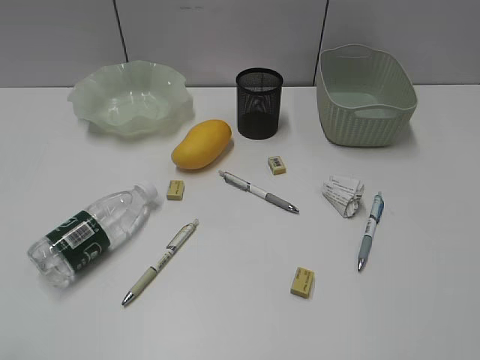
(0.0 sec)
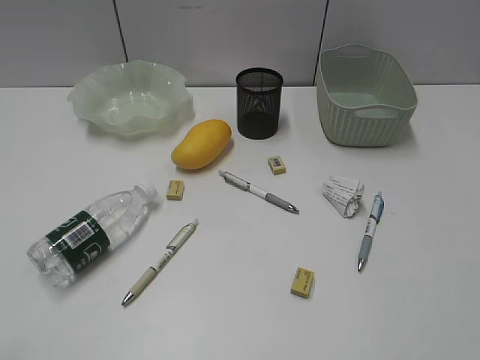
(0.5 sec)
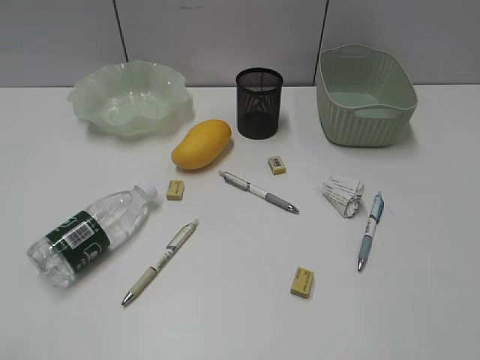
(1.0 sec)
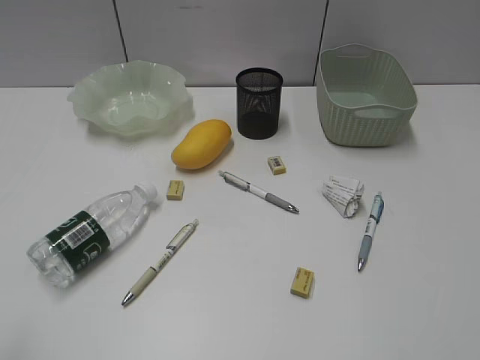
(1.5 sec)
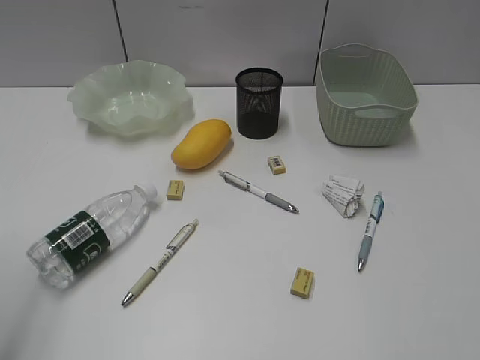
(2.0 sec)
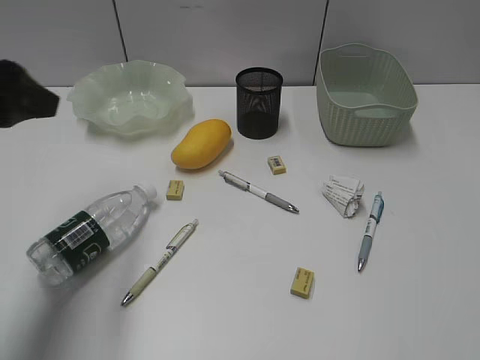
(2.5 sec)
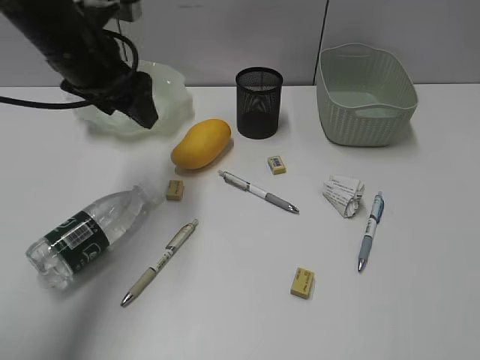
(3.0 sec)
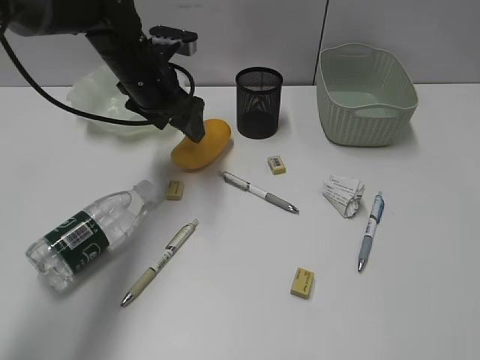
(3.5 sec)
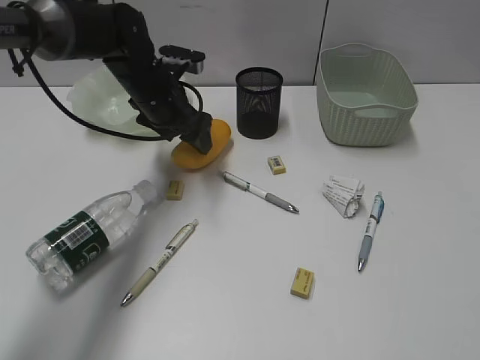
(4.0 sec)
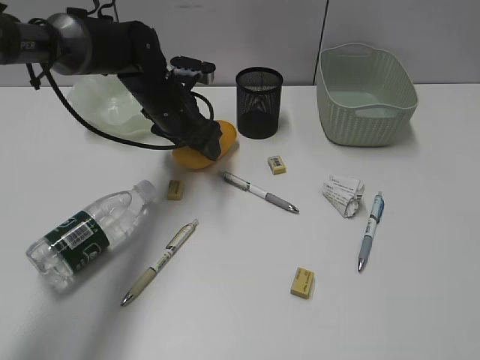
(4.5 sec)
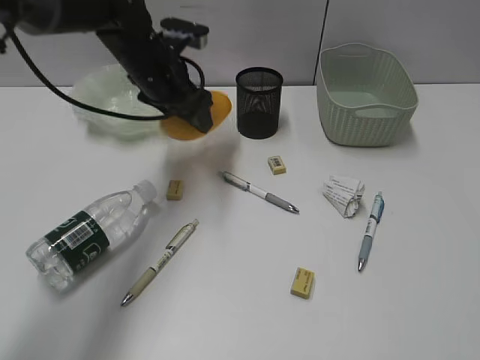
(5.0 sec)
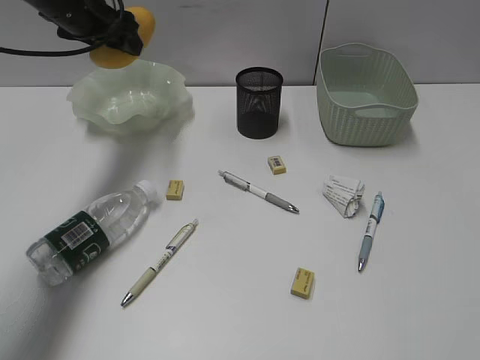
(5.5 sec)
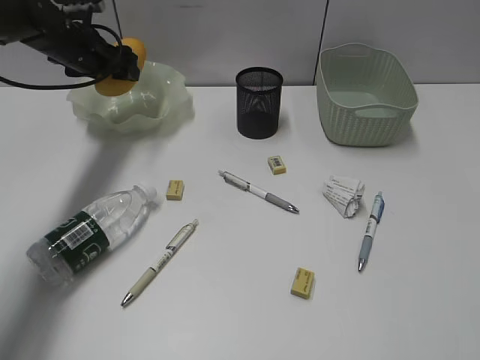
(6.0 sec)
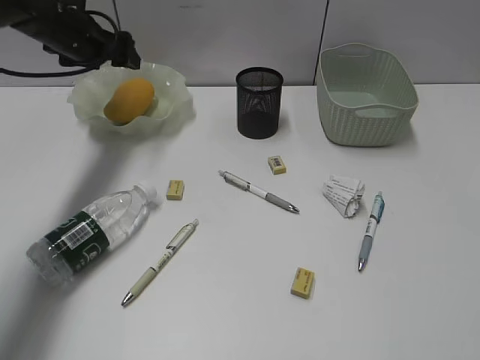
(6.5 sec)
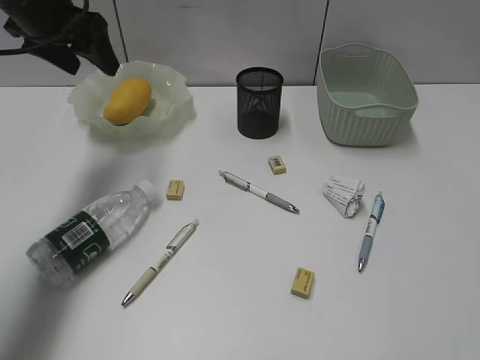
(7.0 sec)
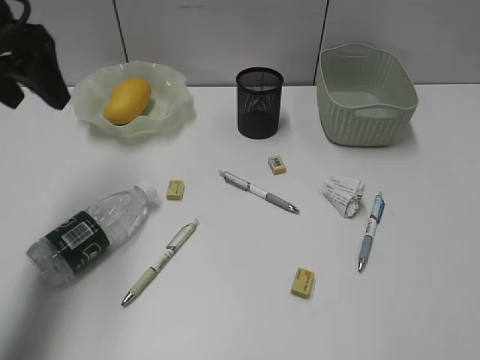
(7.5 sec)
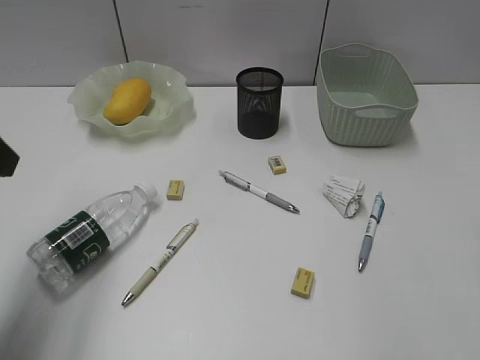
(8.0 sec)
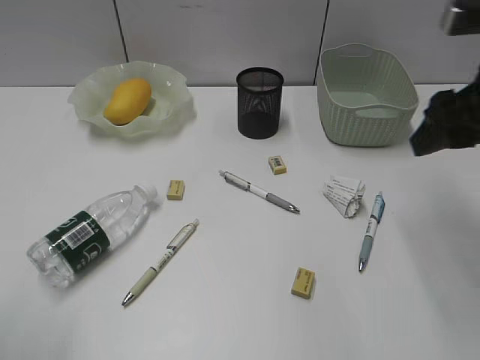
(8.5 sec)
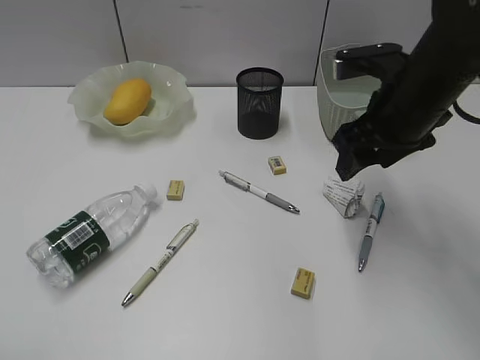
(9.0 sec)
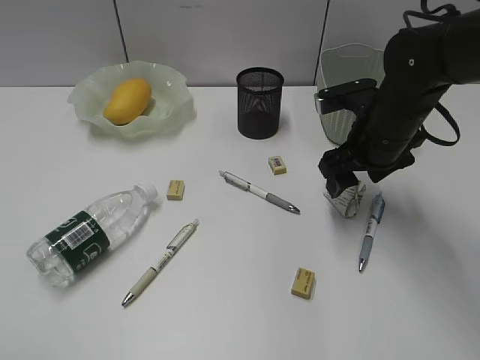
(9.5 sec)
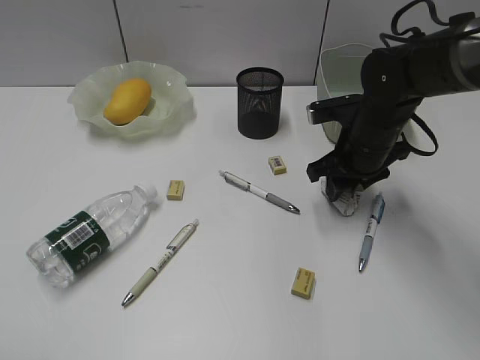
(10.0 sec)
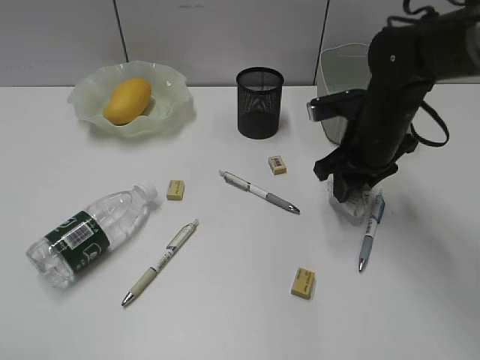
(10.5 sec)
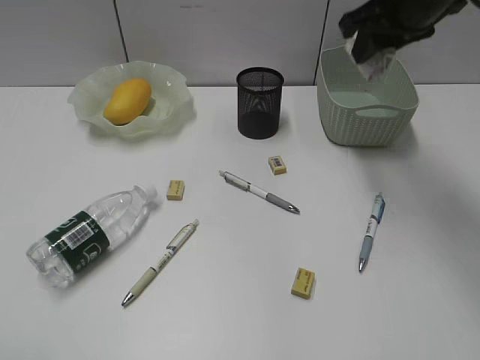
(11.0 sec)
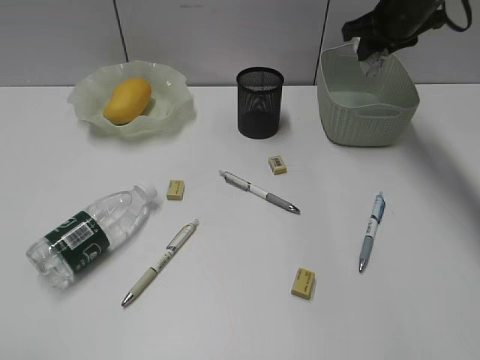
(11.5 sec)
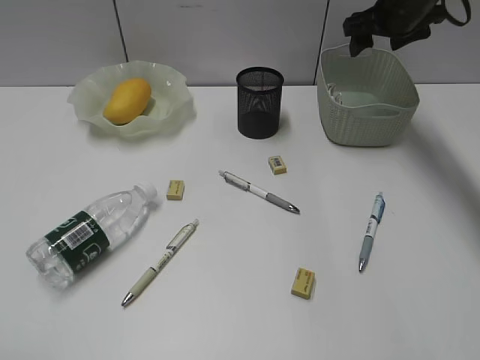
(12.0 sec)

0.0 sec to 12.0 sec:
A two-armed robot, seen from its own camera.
Step, 2.5 sec to 4.5 sec: Grasp the mango with left gripper.
Step, 5.0 sec to 6.5 sec: Place the mango in the plate with left gripper.
Step, 7.0 sec to 10.0 sec: Grasp the waste paper with right gripper.
Step, 10.5 sec to 11.5 sec: Place the waste paper in the basket with right gripper.
2.0 sec to 4.0 sec: The left gripper travels forward, to the right and downward by approximately 40 cm.
4.0 sec to 6.0 sec: The left gripper goes some 15 cm to the left and forward.
6.0 sec to 8.0 sec: The left gripper is displaced backward by roughly 30 cm.
8.0 sec to 10.0 sec: The right gripper goes roughly 35 cm forward, downward and to the left, while the left gripper heads backward, covering roughly 20 cm.
10.0 sec to 12.0 sec: The right gripper shifts some 20 cm forward and upward, and opens up.

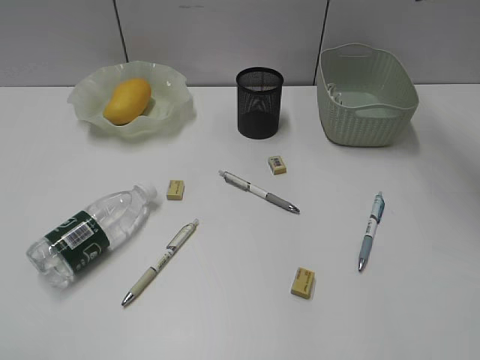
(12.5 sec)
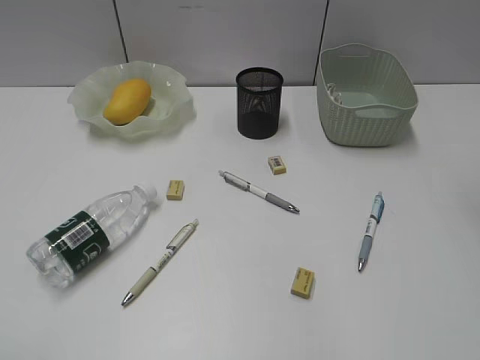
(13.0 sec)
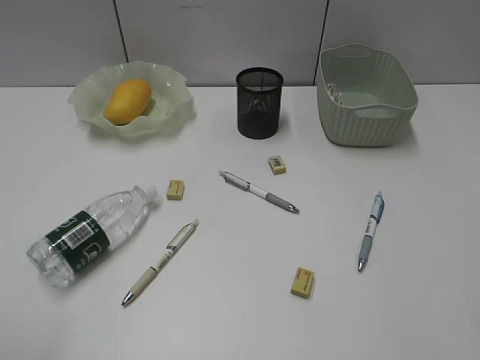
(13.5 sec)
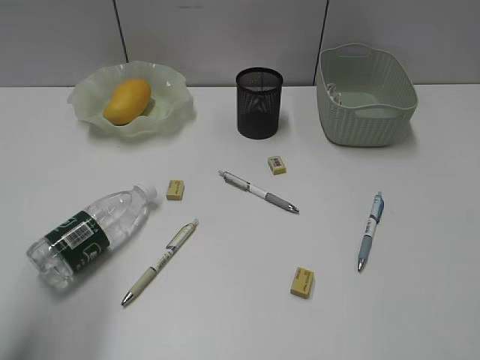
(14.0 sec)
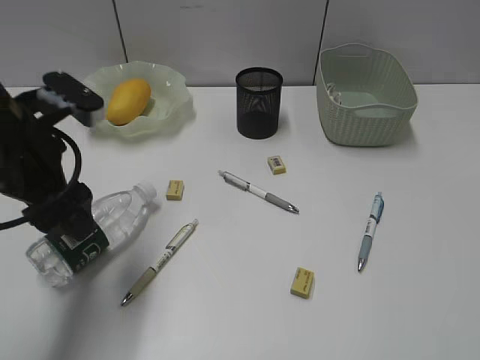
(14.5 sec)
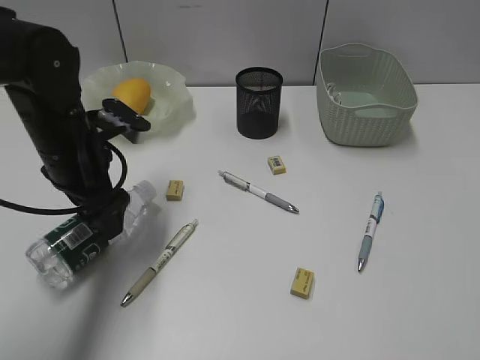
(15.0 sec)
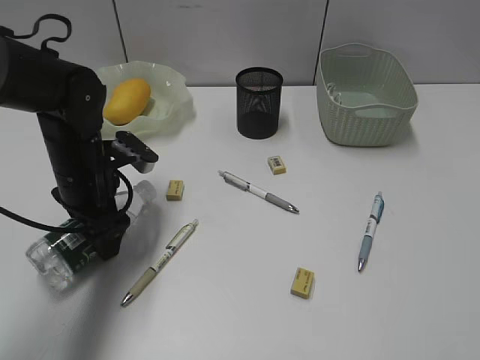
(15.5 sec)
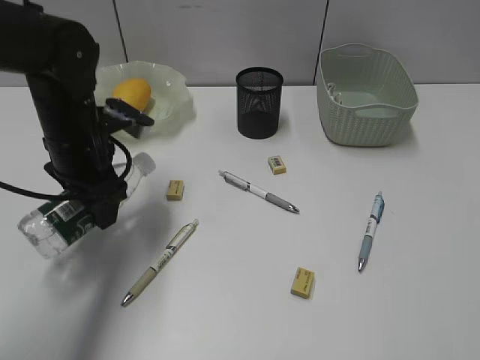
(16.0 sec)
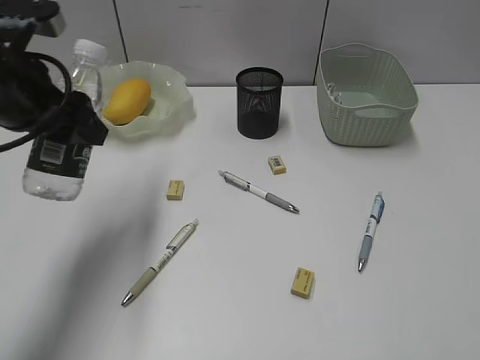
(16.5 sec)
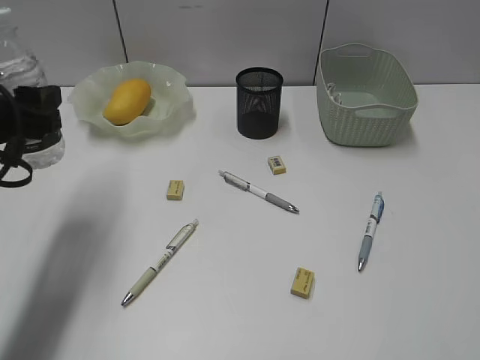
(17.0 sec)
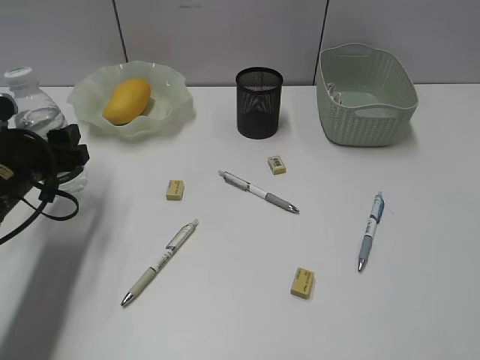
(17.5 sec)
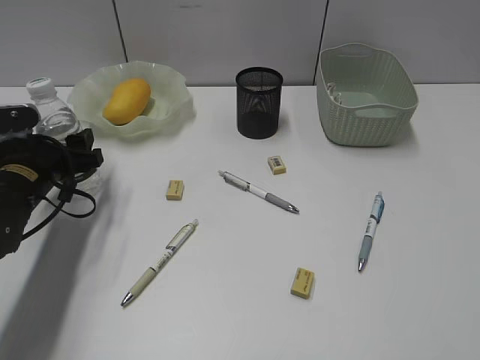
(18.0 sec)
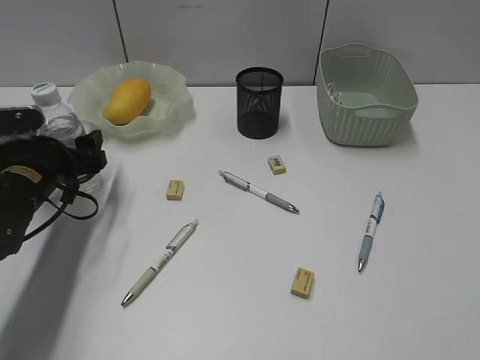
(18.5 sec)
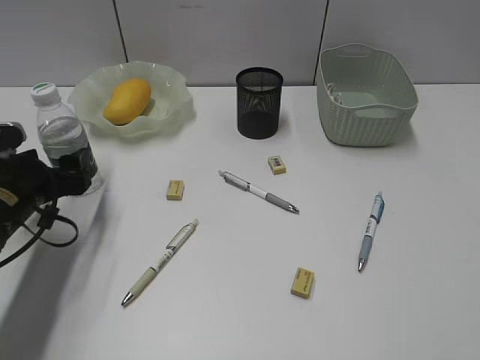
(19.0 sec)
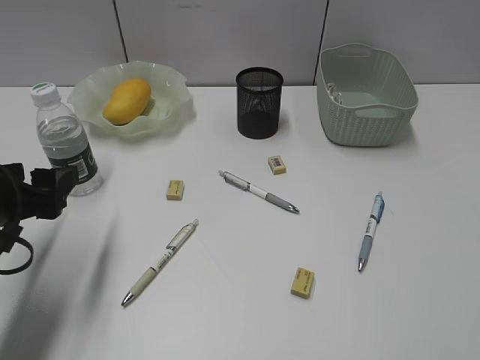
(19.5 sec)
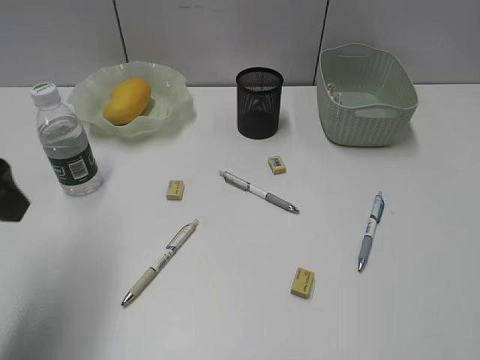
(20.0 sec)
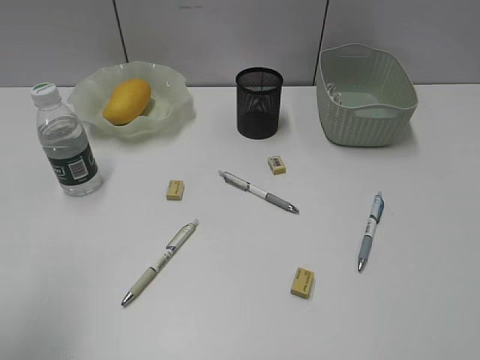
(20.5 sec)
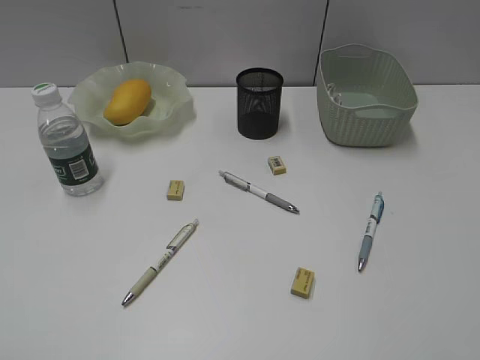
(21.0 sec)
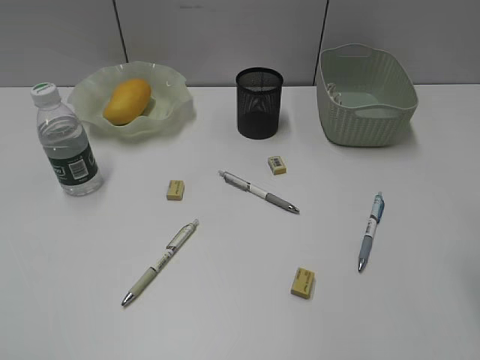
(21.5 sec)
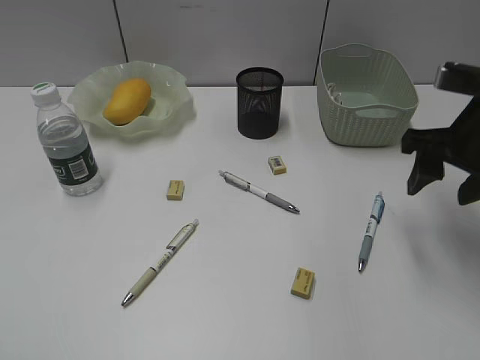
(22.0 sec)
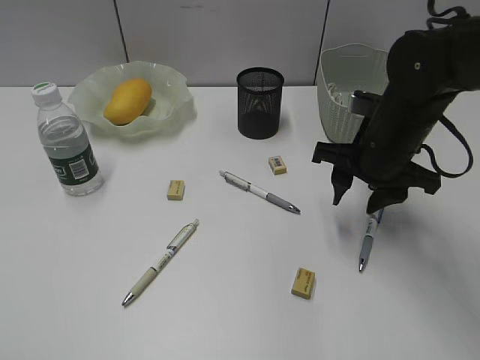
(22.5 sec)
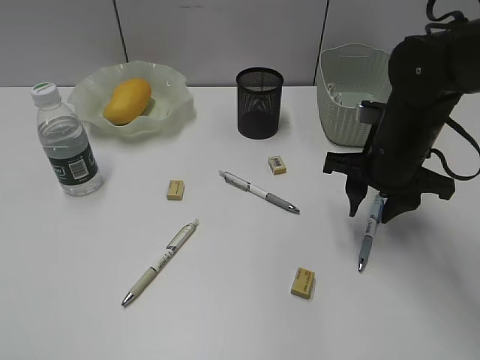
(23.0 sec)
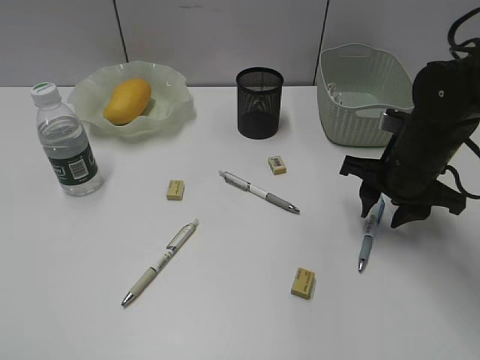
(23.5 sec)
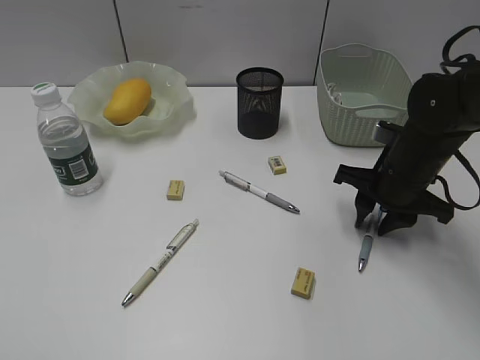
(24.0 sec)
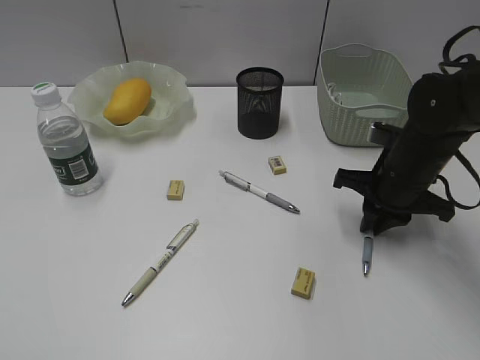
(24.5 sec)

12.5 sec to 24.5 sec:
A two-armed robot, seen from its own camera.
Step, 12.5 sec to 15.5 sec: Grasp the bottle with left gripper.
Step, 16.0 sec to 19.0 sec: Stand the bottle with left gripper.
Step, 19.5 sec to 24.0 sec: Grasp the blue pen with right gripper.
12.5 sec to 14.5 sec: The left gripper is displaced forward and to the right by about 30 cm. Meanwhile the right gripper is displaced backward by roughly 40 cm, and opens.
14.5 sec to 16.5 sec: The left gripper goes downward and returns, approximately 10 cm each way.
16.5 sec to 18.5 sec: The left gripper is displaced downward by about 15 cm.
18.5 sec to 20.5 sec: The left gripper shifts some 30 cm backward and upward.
20.5 sec to 22.5 sec: The left gripper is displaced backward by roughly 10 cm, while the right gripper travels forward, to the left and downward by approximately 35 cm.
22.5 sec to 24.5 sec: The right gripper changes place by roughly 5 cm, and closes its fingers.

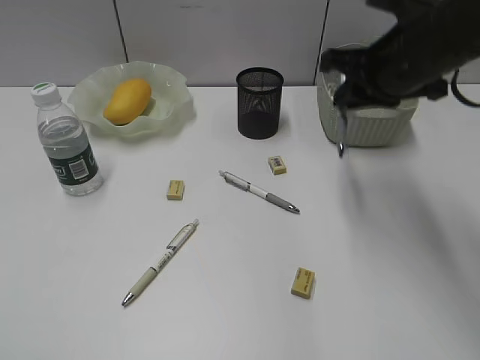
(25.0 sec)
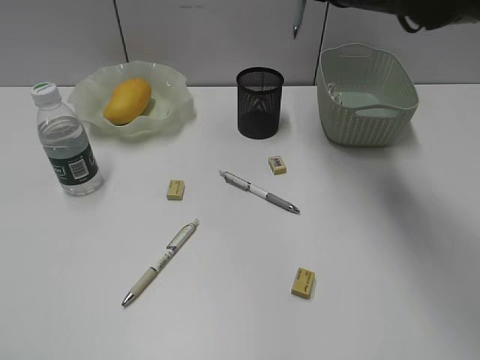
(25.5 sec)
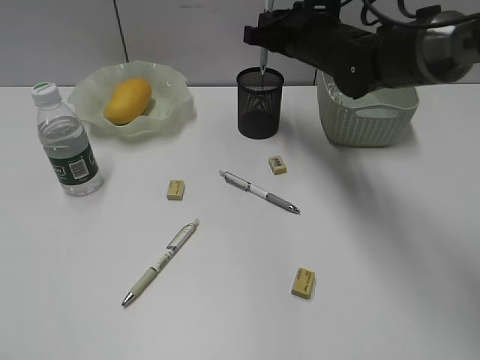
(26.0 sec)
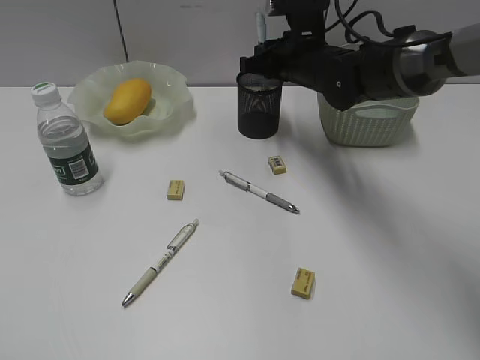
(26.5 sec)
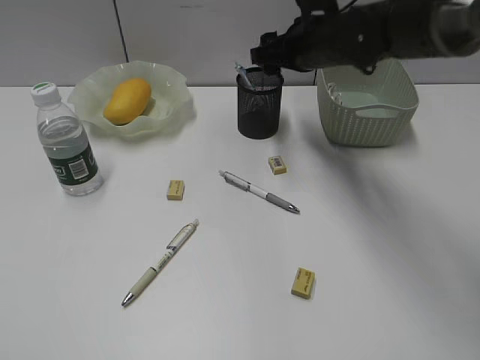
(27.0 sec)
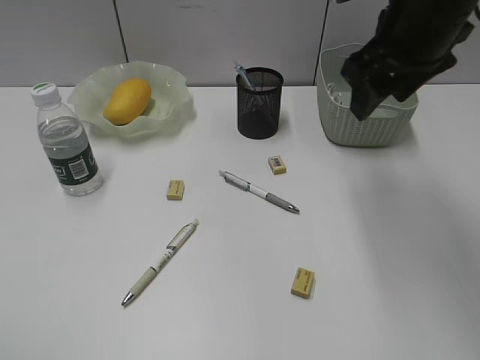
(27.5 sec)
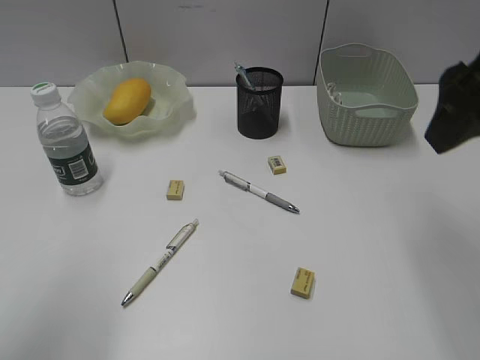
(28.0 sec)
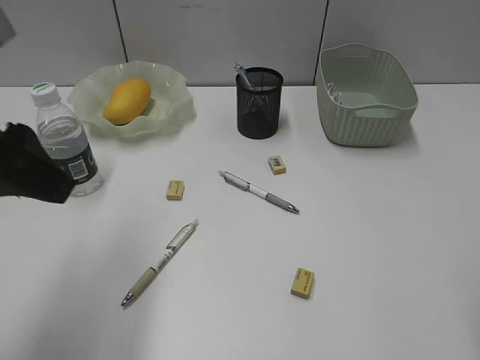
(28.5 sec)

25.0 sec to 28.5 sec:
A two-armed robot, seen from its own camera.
Step, 25.0 sec to 26.5 sec: Place the blue pen in pen holder with right gripper.
25.0 sec to 27.0 sec: The right gripper moves forward and to the left, some 15 cm, and opens.
27.0 sec to 28.5 sec: The left gripper goes about 25 cm forward and to the right, while the right gripper moves backward and to the right, some 35 cm.
